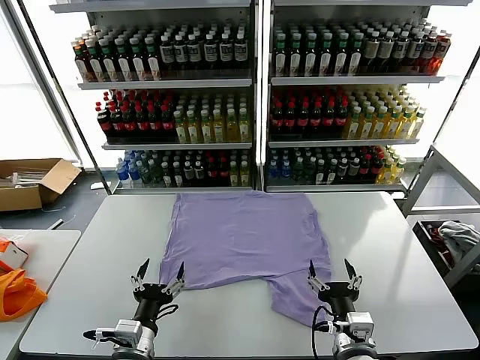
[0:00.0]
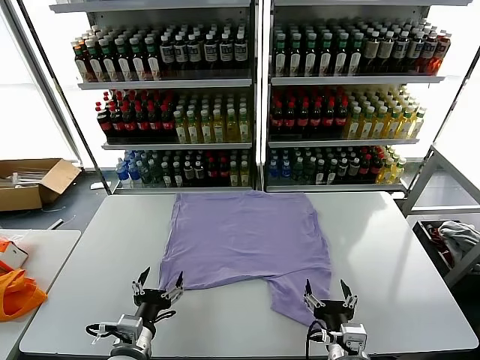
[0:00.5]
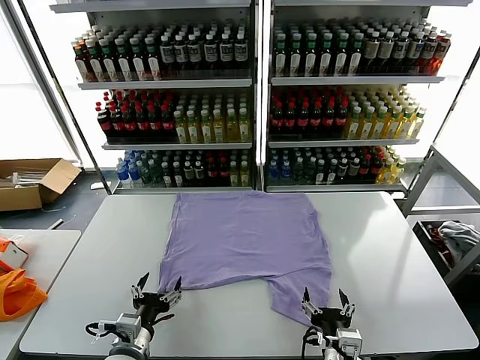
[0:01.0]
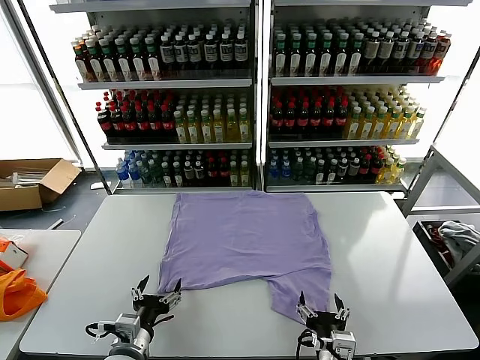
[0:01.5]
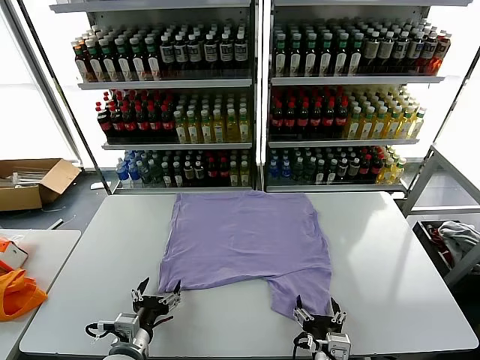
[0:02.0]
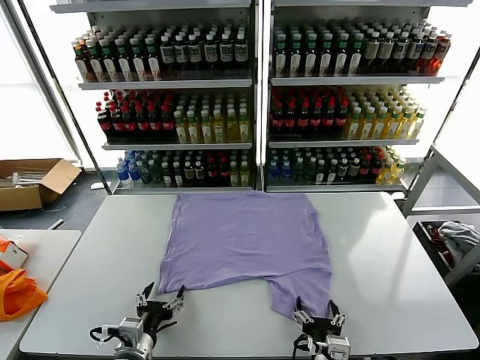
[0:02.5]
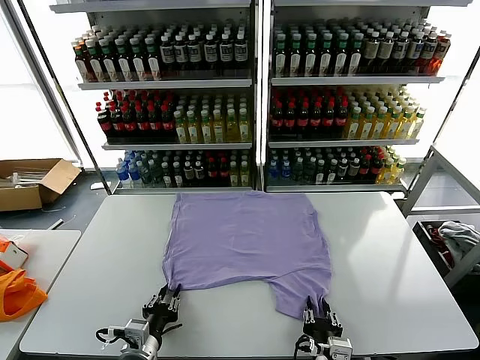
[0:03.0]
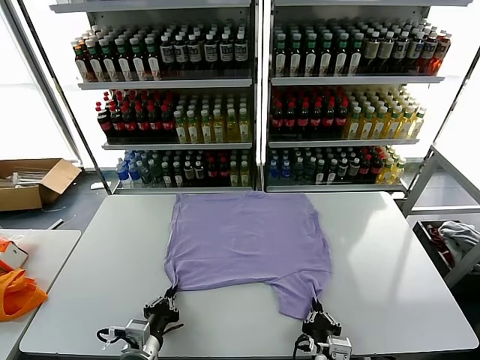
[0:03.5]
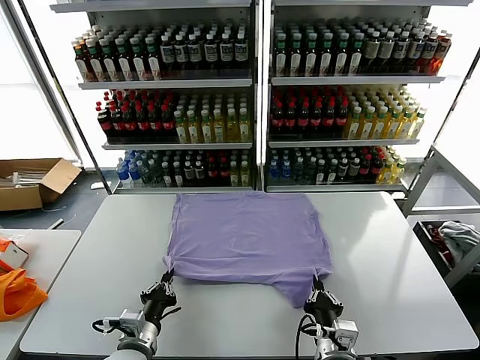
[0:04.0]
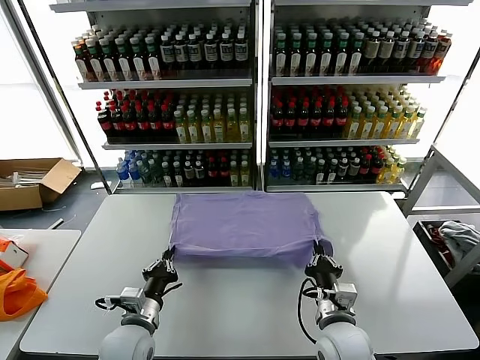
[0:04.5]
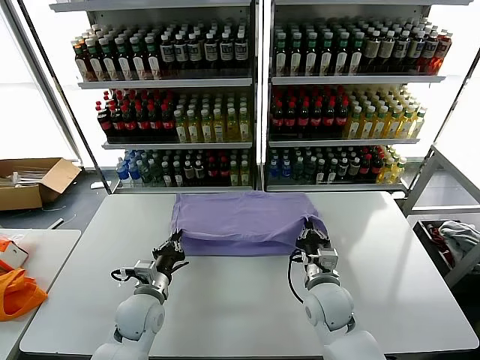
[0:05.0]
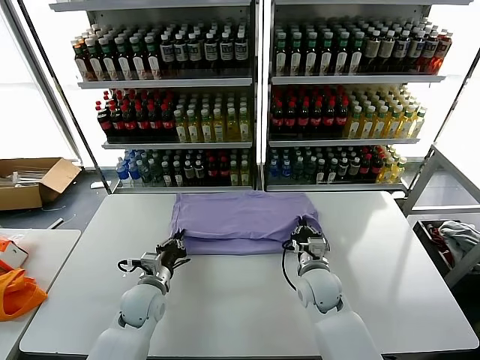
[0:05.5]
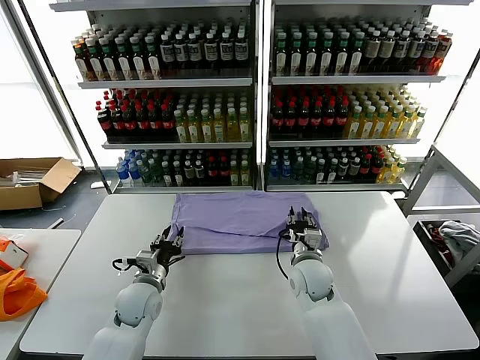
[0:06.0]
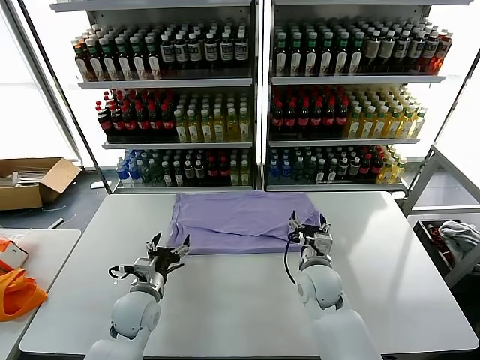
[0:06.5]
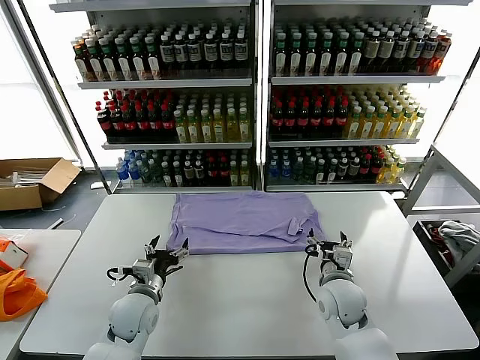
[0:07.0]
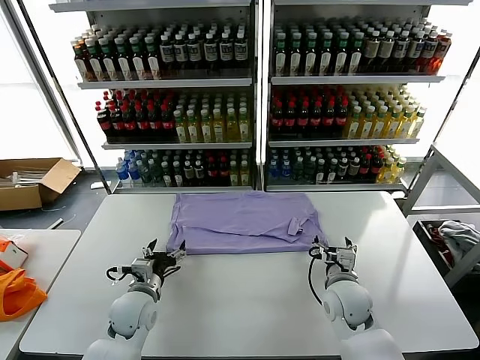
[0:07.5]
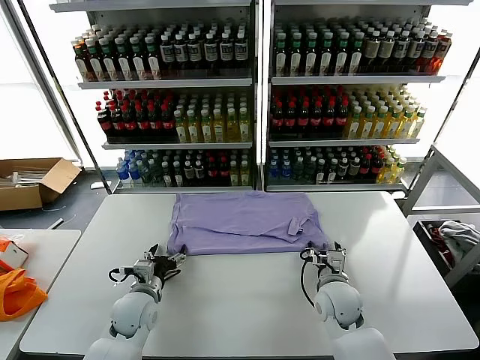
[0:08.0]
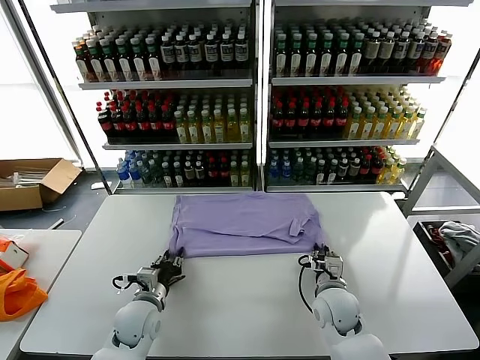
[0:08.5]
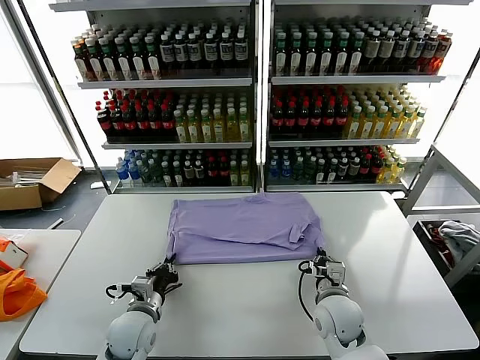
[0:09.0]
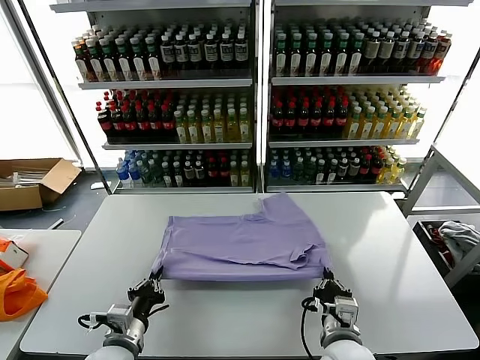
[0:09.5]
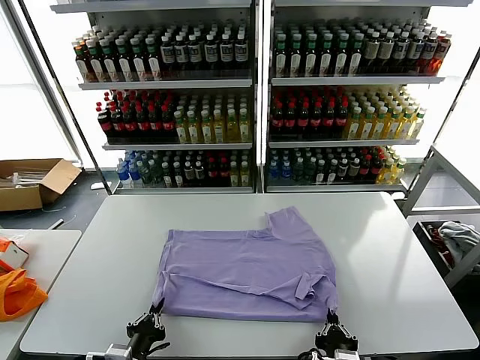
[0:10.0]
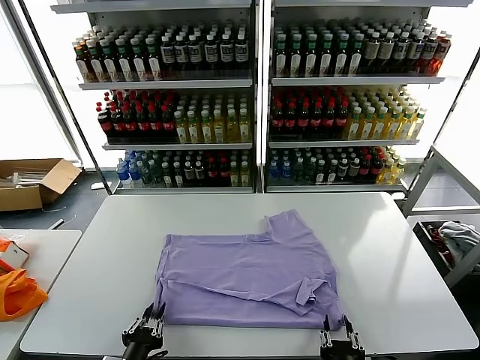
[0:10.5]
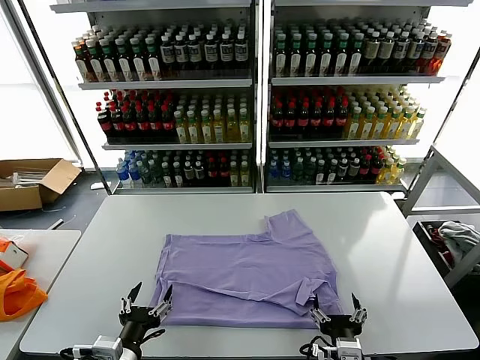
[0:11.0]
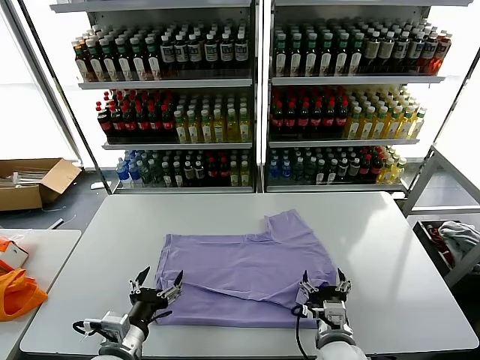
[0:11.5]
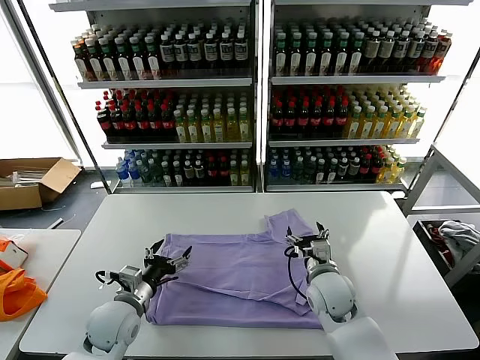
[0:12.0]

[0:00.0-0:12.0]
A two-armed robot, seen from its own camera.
Task of the whole recording: fold and organize the clothes.
Step, 0:00.0 to 0:03.5: use both grippers simultaneously to clamp the lower edge of the clothing fabric.
Step, 0:04.0 to 0:06.0: use both grippers to drag the lower edge of the fabric forward and fold it over the upper edge.
Step, 0:06.5 to 0:10.5: Drag the clothes downward with both gripper.
0:02.0 to 0:04.0: The right gripper closes its fingers. The left gripper closes.
0:04.0 to 0:06.0: Both grippers travel together forward, some 15 cm. The left gripper opens, while the right gripper opens up.
0:06.0 to 0:08.0: The left gripper opens; the right gripper goes about 5 cm backward and to the right.
0:08.0 to 0:10.0: The two grippers go roughly 20 cm backward. The left gripper closes up; the right gripper closes.
0:10.0 to 0:12.0: The left gripper is displaced forward by about 15 cm, and opens up. The right gripper travels forward by roughly 25 cm, and opens its fingers.

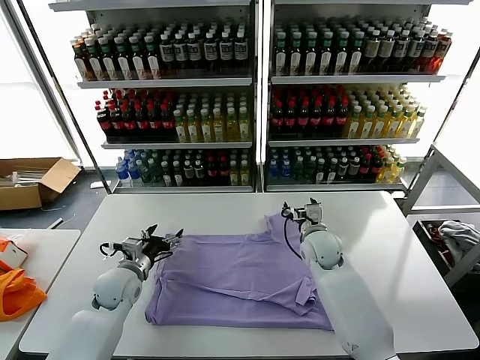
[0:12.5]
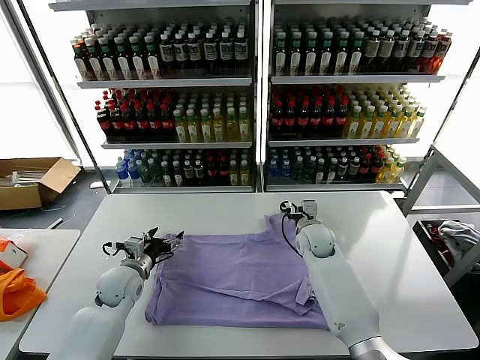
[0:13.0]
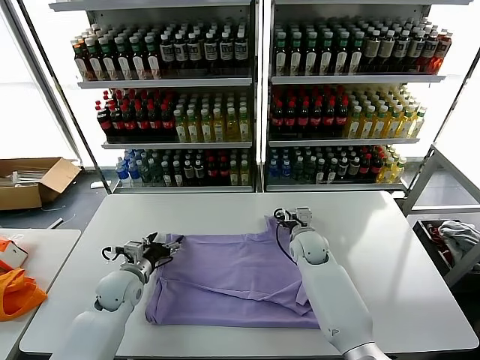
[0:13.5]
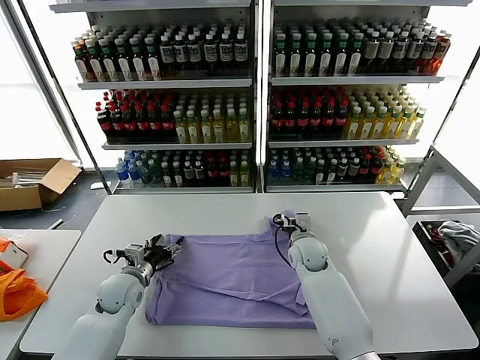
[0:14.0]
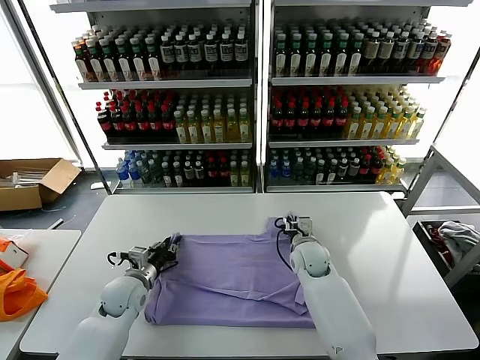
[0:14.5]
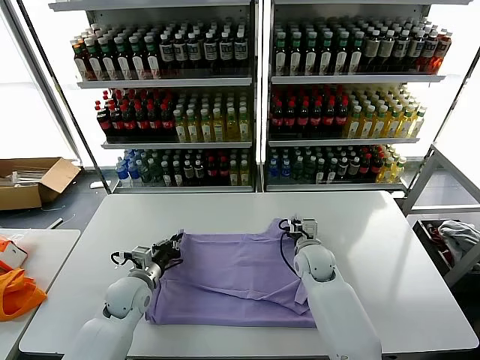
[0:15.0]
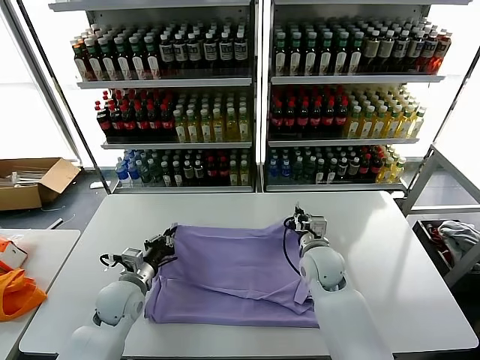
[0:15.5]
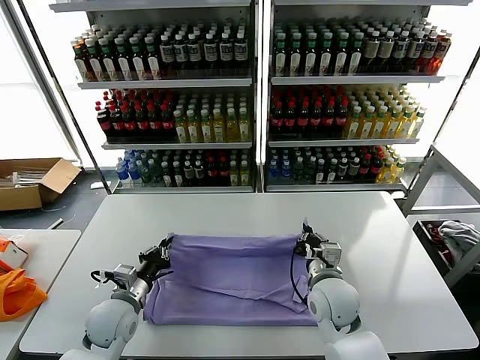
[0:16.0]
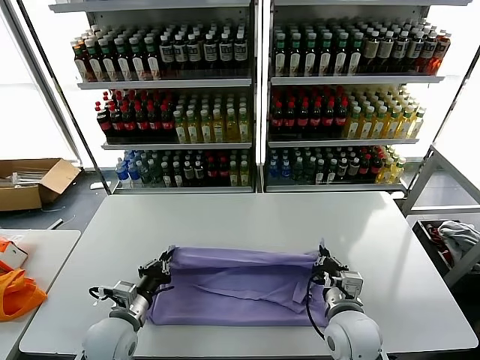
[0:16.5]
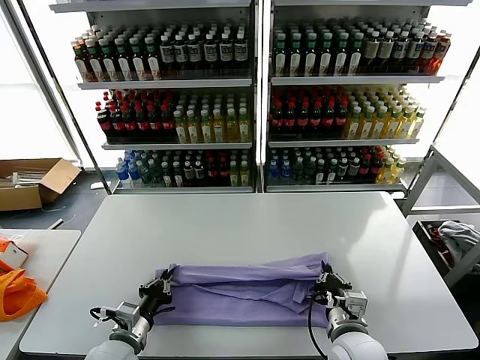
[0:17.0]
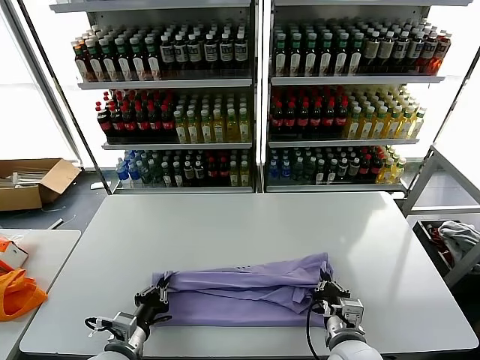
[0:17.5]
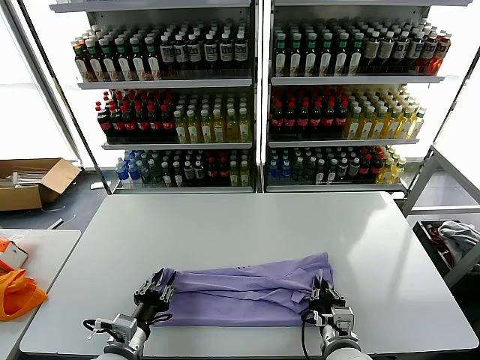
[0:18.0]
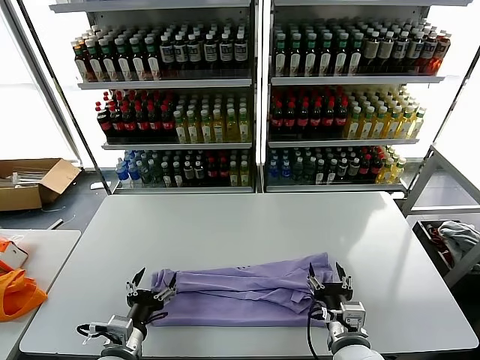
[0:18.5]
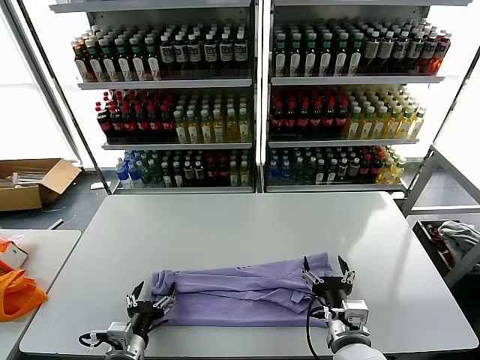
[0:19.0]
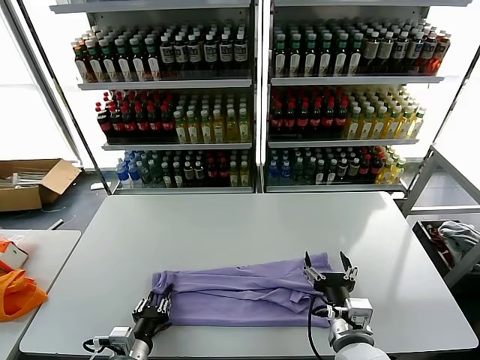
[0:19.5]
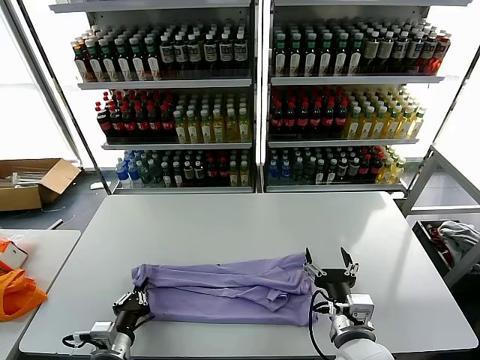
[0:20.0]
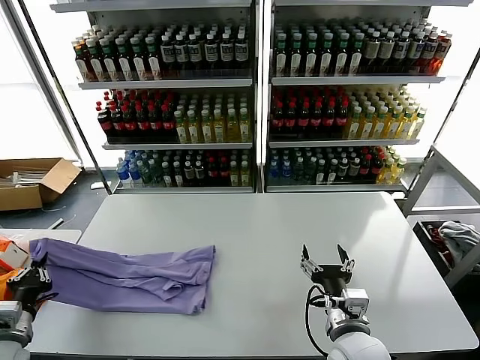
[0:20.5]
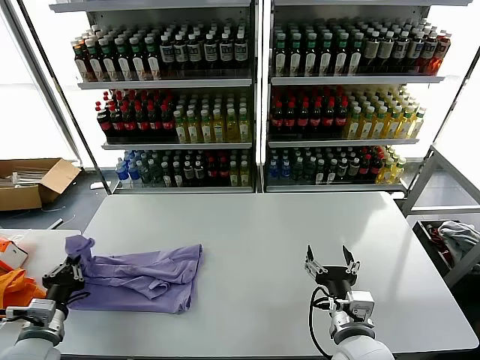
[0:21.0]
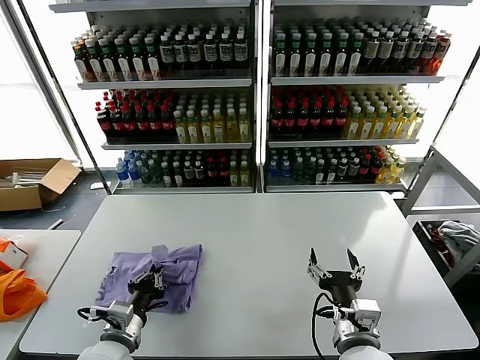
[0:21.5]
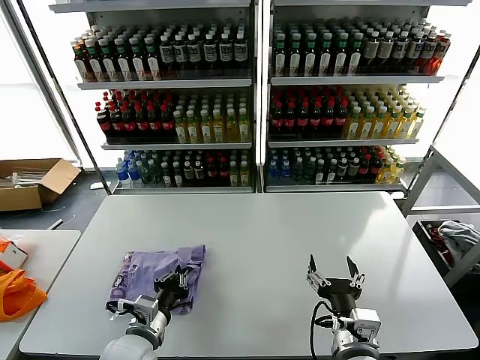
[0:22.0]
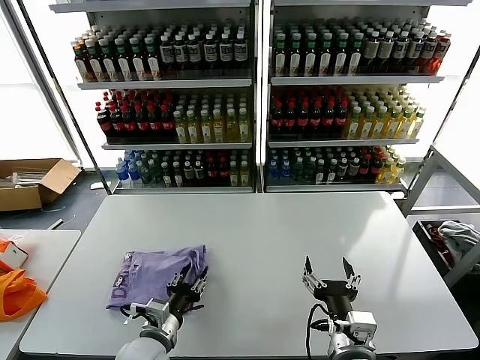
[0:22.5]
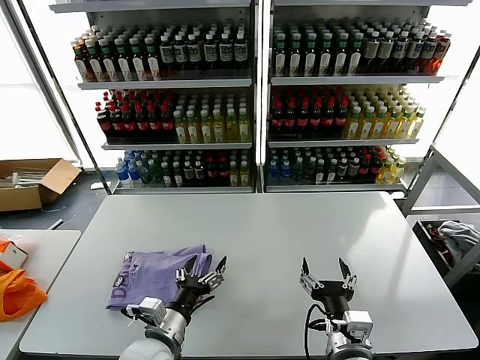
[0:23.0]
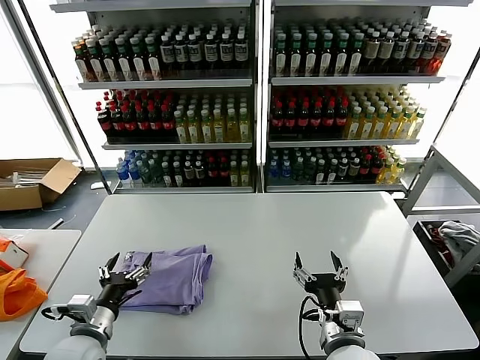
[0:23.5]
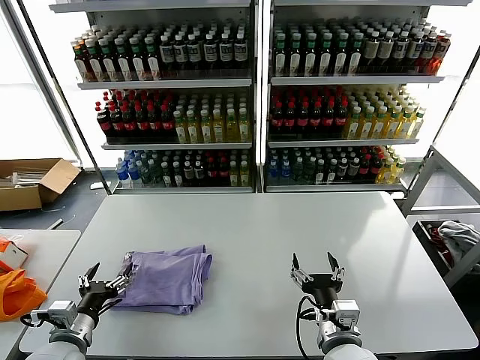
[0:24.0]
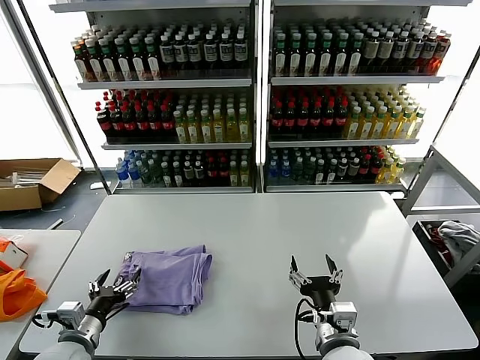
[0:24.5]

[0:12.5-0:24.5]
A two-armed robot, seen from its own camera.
Task of the whole recording: fold and organize the clothes.
Step, 0:12.5 to 0:14.5: use both grippers simultaneously to clamp the upper edge of the clothing fabric.
Step, 0:15.0 to 0:18.0: use both grippers to drag the upper edge of the fabric backward and fold it over the lower edge.
Step, 0:18.5 to 0:19.5: use the left gripper to clamp the left edge of the fabric.
Step, 0:20.0 to 0:22.5: use the left gripper to drag the left edge of the fabric to the left and folds it over the right edge.
0:12.5 to 0:14.5: The right gripper moves some 5 cm, and closes its fingers, while the left gripper closes up.
0:14.5 to 0:16.5: The right gripper travels backward by roughly 20 cm, while the left gripper moves backward, approximately 10 cm.
0:16.5 to 0:18.5: The grippers both shift backward by about 5 cm. The left gripper opens. Meanwhile the right gripper opens.
0:18.5 to 0:20.5: The left gripper shifts about 20 cm to the left, and closes up.
0:20.5 to 0:22.5: The left gripper is displaced to the right by some 25 cm, and opens its fingers.
0:22.5 to 0:24.5: The left gripper moves to the left, roughly 15 cm, and opens up.

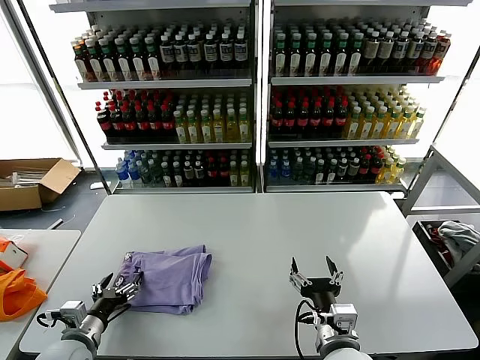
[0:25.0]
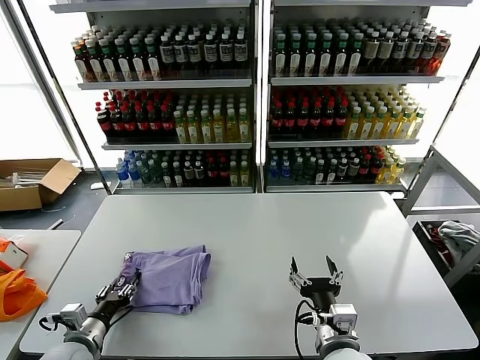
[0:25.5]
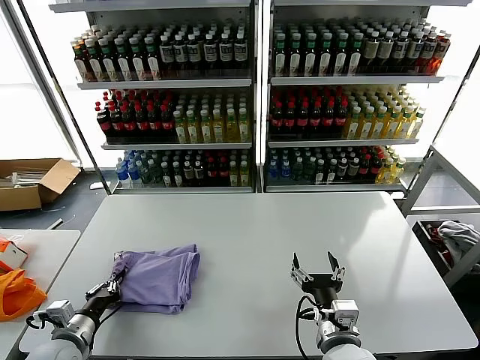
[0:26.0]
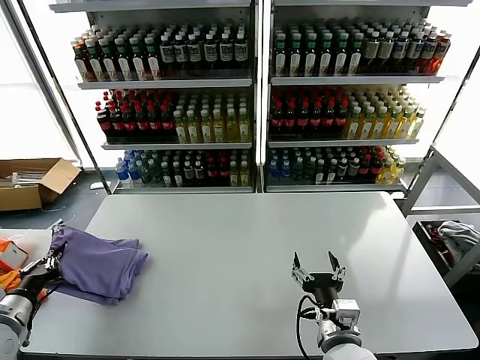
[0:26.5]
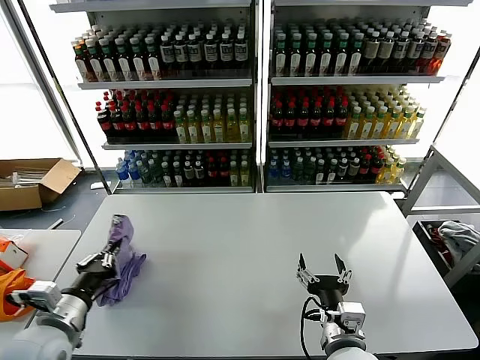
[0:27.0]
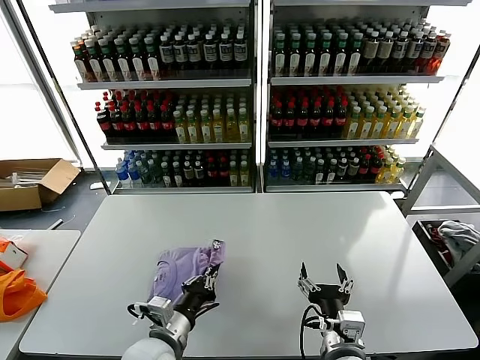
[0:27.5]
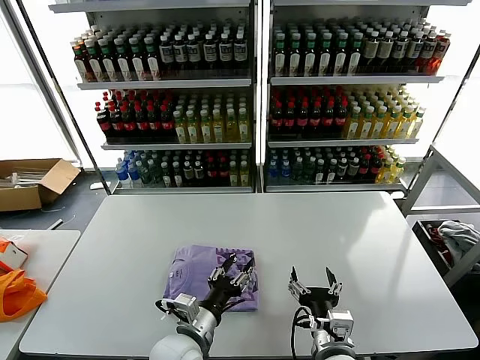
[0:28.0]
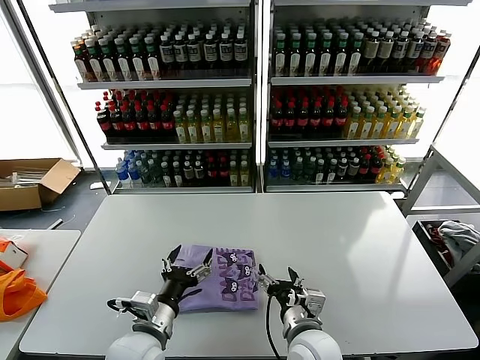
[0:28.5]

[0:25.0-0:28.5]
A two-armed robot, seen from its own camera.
Task of the whole recording: fold and organize the clothes.
Step, 0:25.0 to 0:27.5: Flip the folded clothes over with left gripper.
0:25.0 to 0:27.0: The left gripper is displaced upward by some 10 cm, and closes its fingers.
0:27.0 to 0:28.5: The left gripper is displaced to the right by approximately 15 cm, and opens. Meanwhile the right gripper heads to the left, covering some 5 cm.
